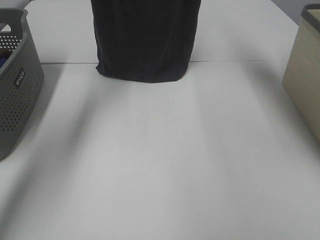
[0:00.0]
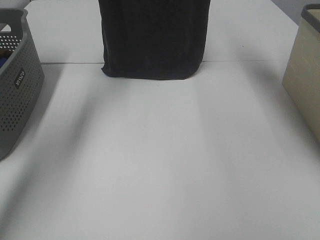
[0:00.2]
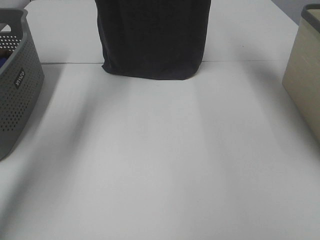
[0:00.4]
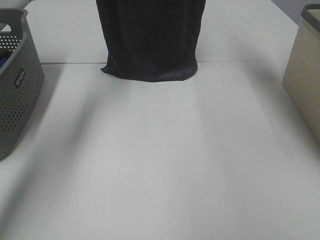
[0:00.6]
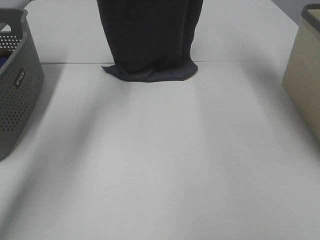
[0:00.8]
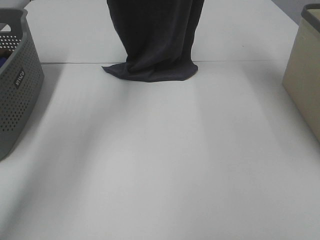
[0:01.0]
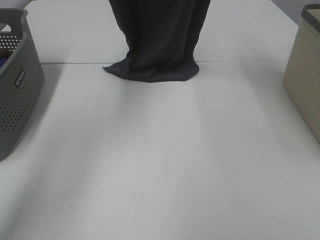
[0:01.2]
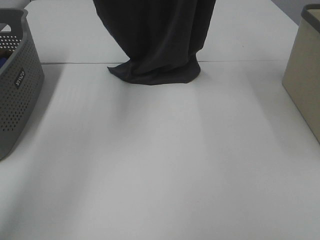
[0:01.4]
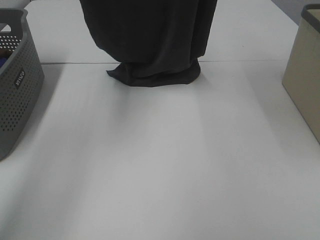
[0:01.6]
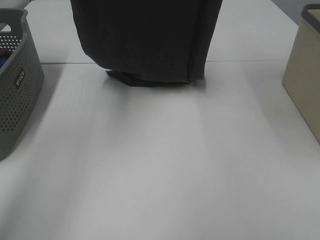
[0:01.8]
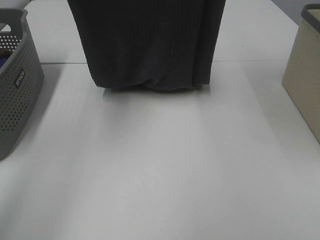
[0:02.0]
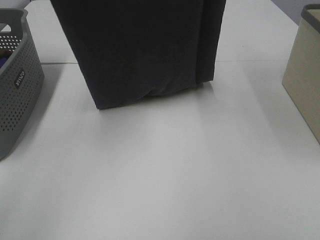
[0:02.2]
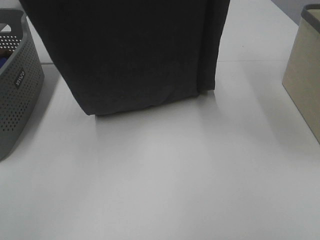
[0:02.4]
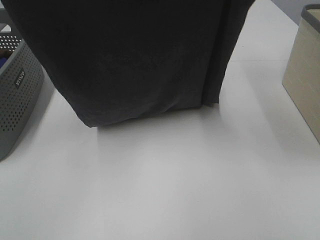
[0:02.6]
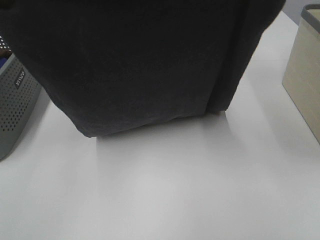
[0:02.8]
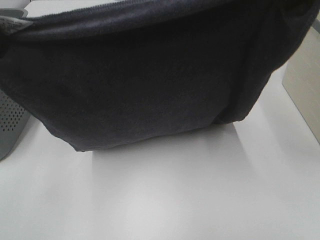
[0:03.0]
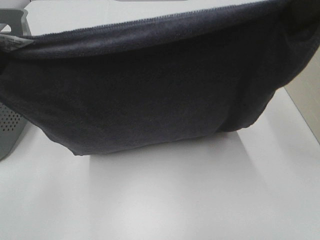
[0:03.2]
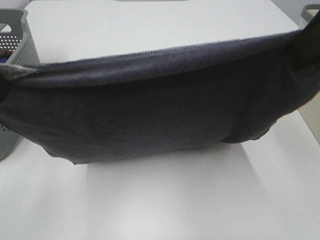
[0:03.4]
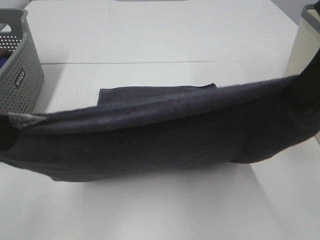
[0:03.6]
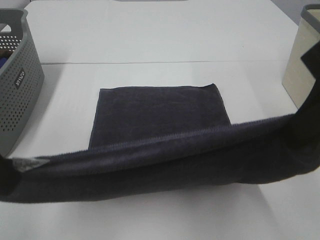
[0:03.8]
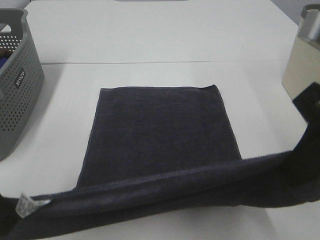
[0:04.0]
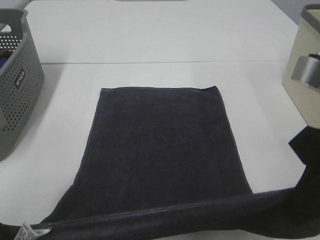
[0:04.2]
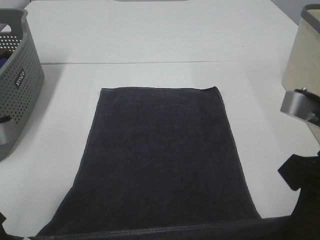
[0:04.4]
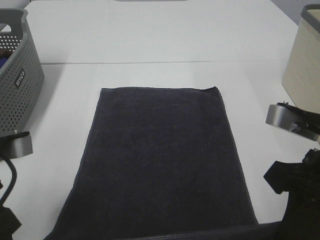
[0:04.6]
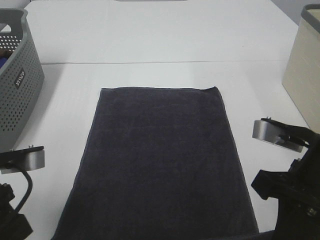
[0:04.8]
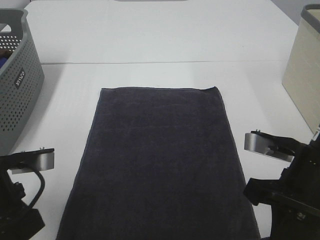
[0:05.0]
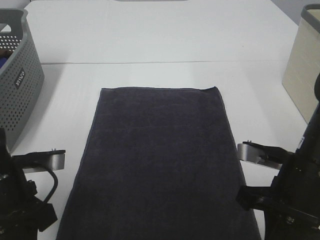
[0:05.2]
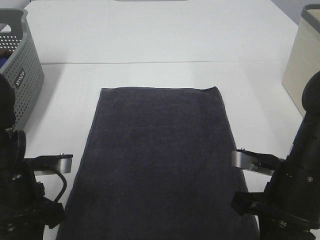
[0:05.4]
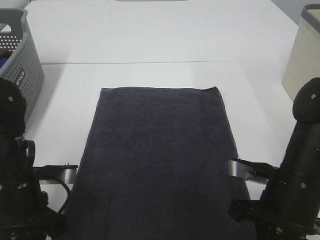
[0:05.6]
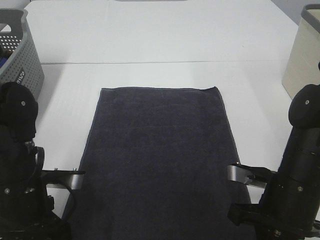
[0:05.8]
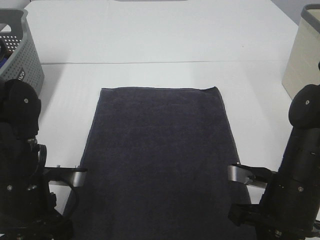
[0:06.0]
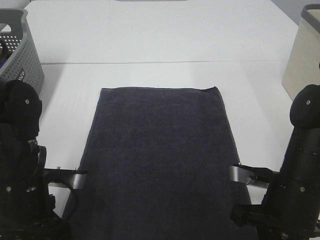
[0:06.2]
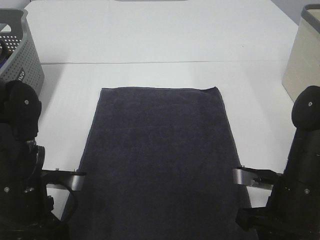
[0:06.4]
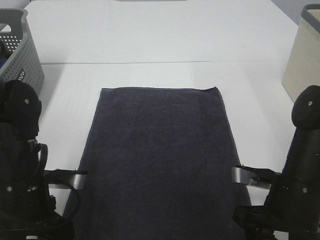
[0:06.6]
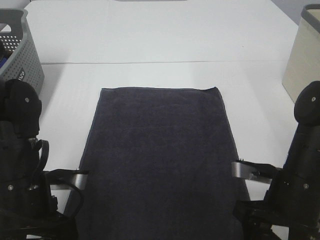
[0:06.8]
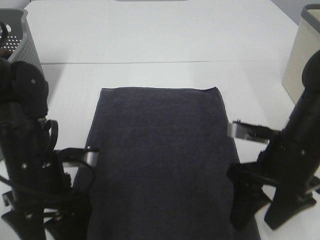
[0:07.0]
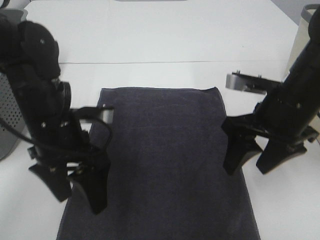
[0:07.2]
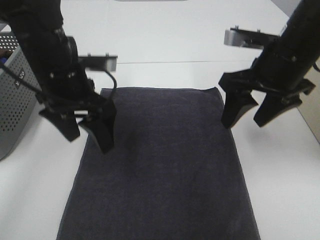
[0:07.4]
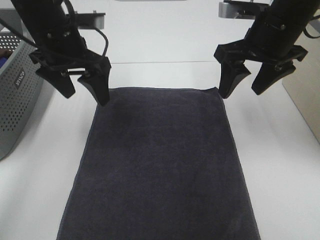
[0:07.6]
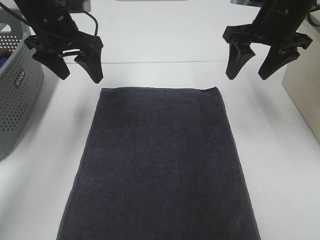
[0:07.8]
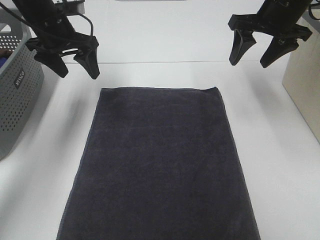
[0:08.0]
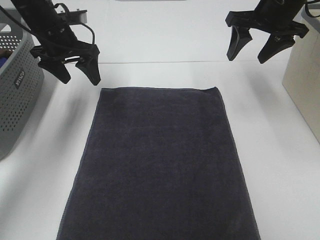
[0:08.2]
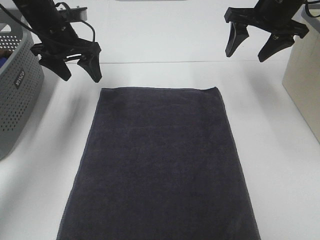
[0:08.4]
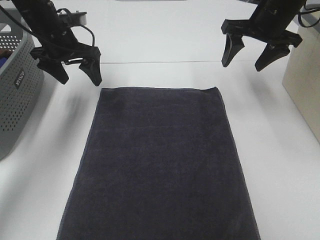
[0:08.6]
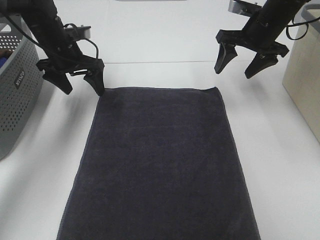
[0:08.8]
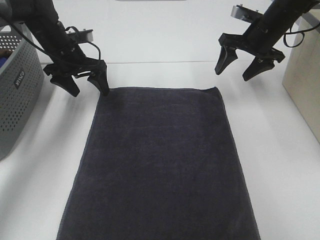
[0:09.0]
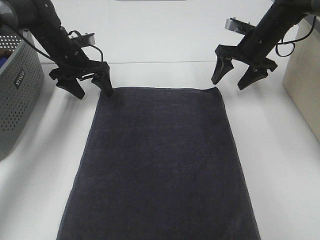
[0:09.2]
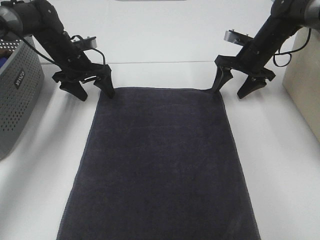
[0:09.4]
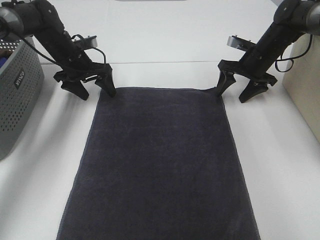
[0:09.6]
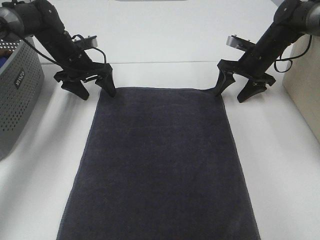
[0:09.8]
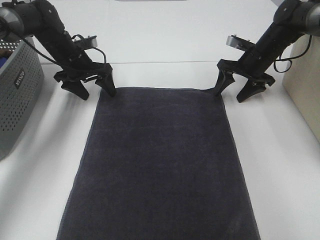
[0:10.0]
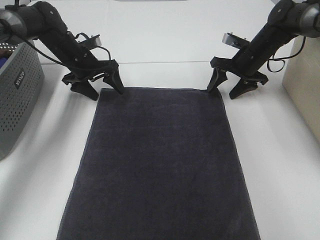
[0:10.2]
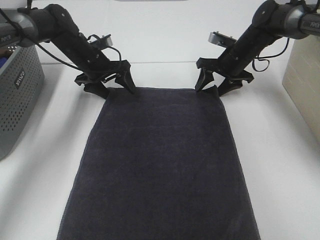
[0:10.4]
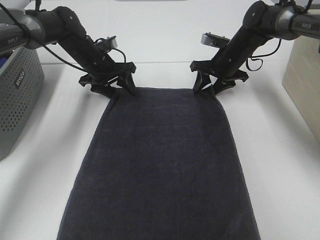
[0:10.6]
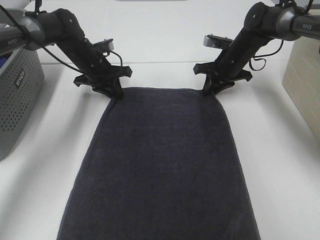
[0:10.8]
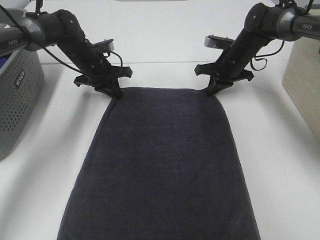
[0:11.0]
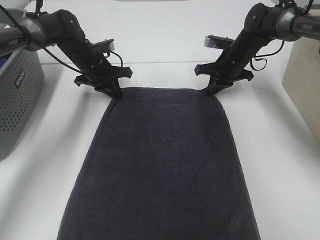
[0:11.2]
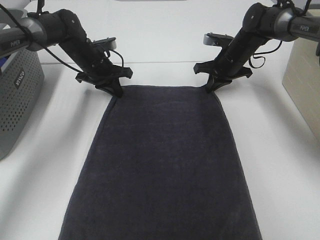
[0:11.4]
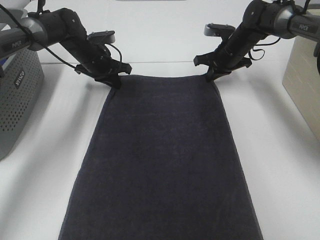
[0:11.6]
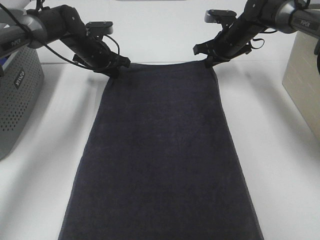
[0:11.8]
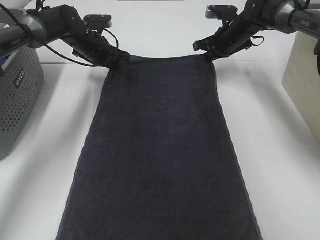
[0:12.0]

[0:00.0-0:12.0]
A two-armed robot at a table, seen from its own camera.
Task of the whole recording: Remove the towel and place it.
Step, 0:00.0 to 0:02.0: Left hand: spread the grey towel flat on the table.
Step, 0:00.0 to 0:02.0: Right hand: spread the grey towel flat on the table.
Step, 0:02.2 to 0:08.6: Right hand:adjust the gray towel.
Step, 0:02.2 to 0:10.6: Left hand:adjust the gray towel.
0:00.0 to 0:01.6: Both grippers travel together backward, approximately 10 cm.
0:01.6 to 0:03.0: Both grippers travel together backward and downward, roughly 20 cm.
0:03.0 to 0:04.4: Both grippers move downward, approximately 15 cm.
0:04.4 to 0:06.0: The left gripper shifts about 10 cm downward and forward, while the right gripper goes about 15 cm downward.
0:06.0 to 0:07.6: Both grippers move forward and upward, some 25 cm. The right gripper opens. The left gripper opens its fingers.
0:07.6 to 0:09.0: The left gripper travels forward and downward by approximately 15 cm, while the right gripper heads forward, downward and to the right, covering roughly 15 cm.
0:09.0 to 0:10.4: The right gripper heads downward, covering roughly 10 cm; the left gripper moves approximately 5 cm.
0:10.4 to 0:12.0: The left gripper closes its fingers. Meanwhile the right gripper moves some 5 cm, and closes its fingers.

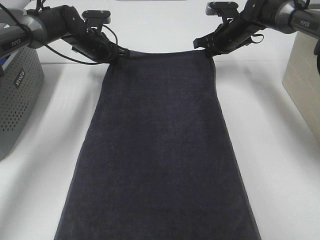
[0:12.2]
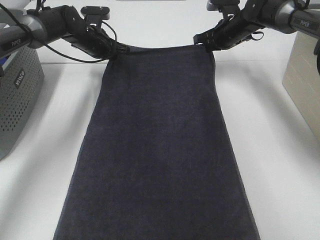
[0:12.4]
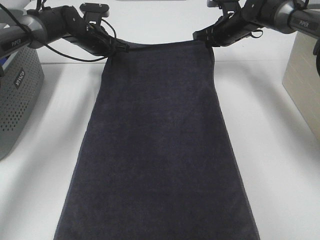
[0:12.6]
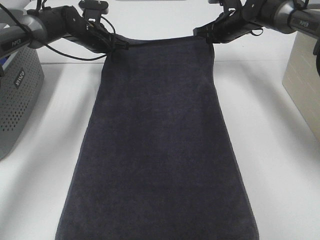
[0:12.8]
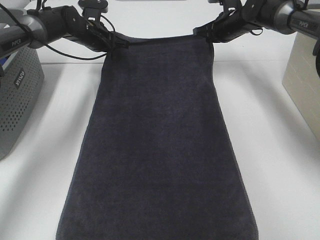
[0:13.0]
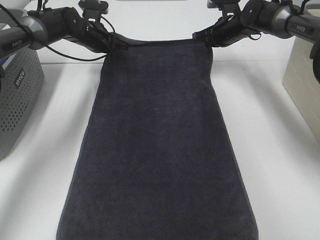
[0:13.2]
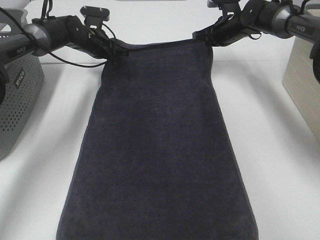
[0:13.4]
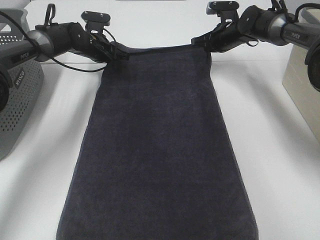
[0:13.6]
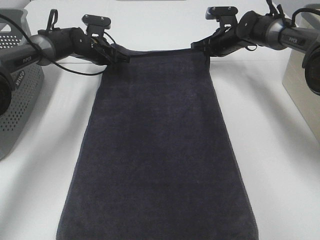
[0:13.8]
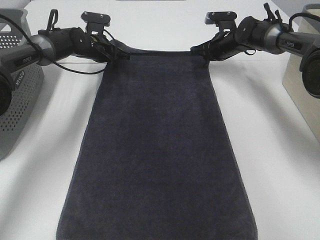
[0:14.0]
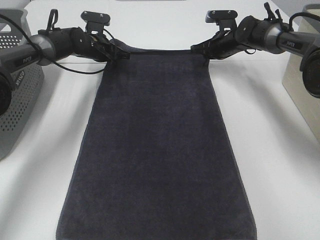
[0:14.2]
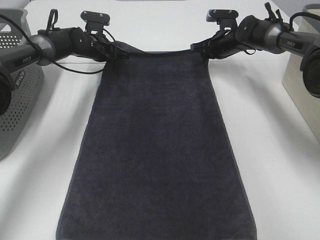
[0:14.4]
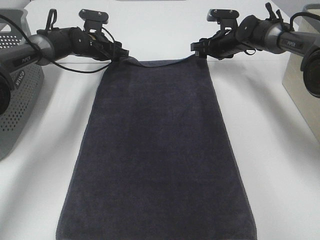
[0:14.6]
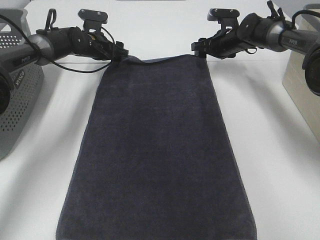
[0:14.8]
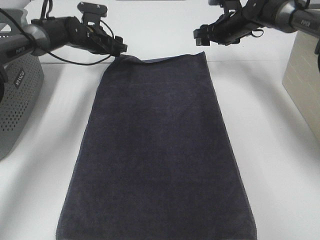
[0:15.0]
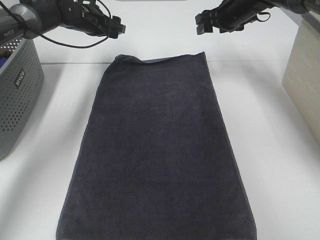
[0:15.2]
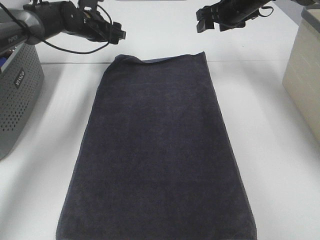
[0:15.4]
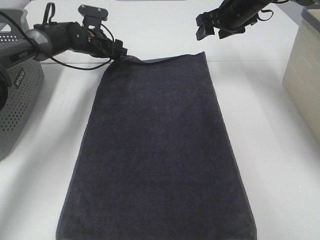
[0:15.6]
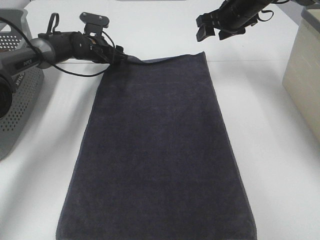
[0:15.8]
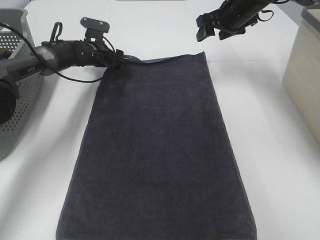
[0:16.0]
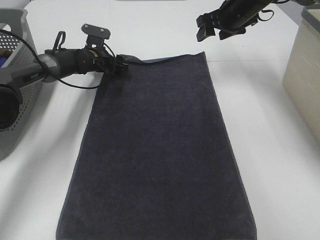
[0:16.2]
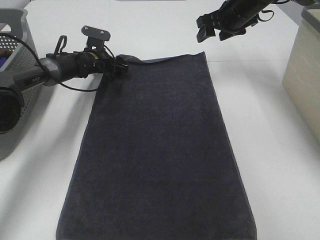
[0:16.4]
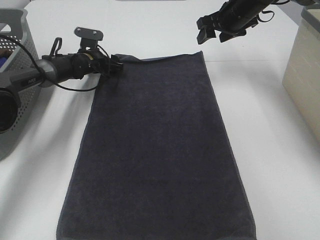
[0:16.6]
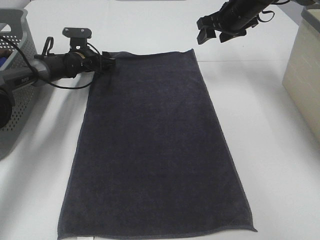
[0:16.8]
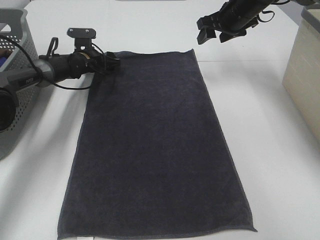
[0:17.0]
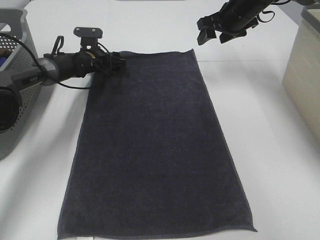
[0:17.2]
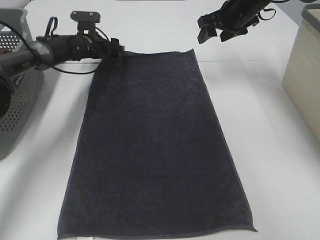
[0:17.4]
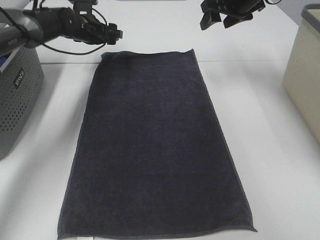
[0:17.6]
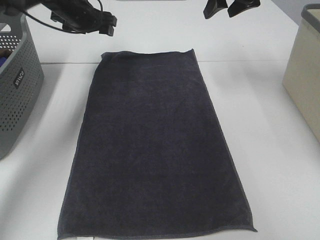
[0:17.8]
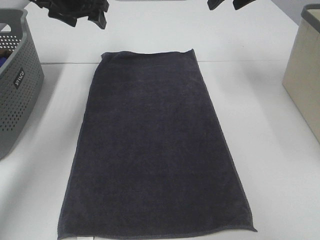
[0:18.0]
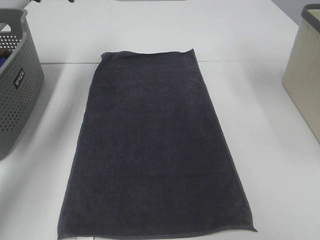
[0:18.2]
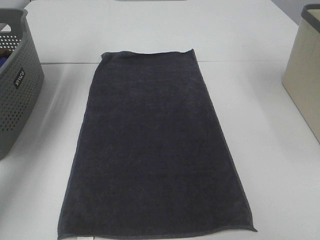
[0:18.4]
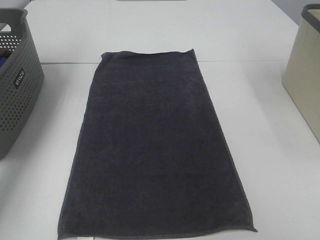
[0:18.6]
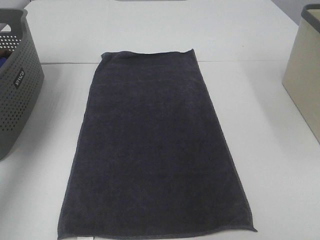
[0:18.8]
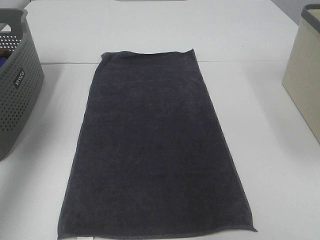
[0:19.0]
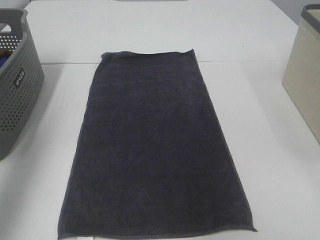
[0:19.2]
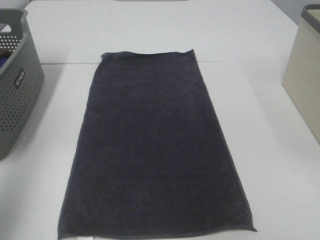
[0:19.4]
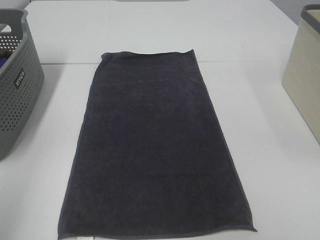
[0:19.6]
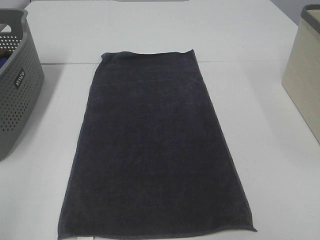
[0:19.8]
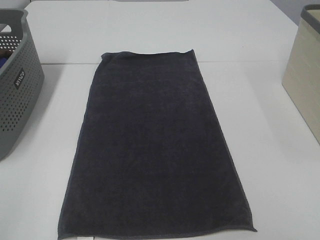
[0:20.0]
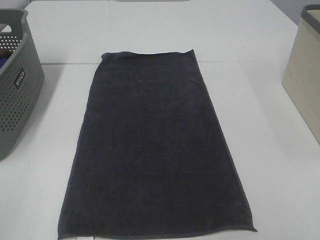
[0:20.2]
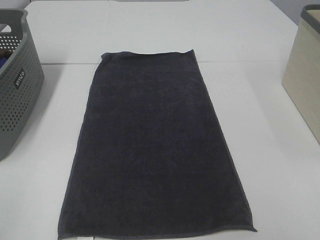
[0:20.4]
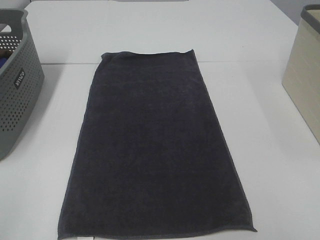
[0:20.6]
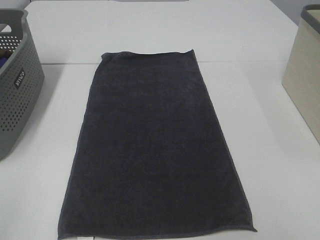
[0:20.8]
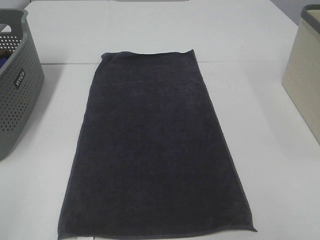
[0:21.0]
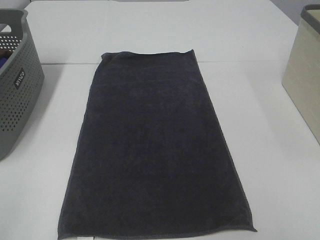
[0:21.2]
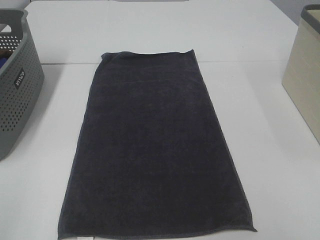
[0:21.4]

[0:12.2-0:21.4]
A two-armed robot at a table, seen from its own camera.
Task of the whole recording: Remove the towel and place it.
0:12.2 to 0:13.8: The grippers make only small movements.
0:13.8 to 0:15.2: The two grippers go about 10 cm upward. The left gripper opens up; the right gripper opens its fingers.
0:15.2 to 0:16.8: The left gripper shifts about 10 cm downward.
0:16.8 to 0:18.4: The left gripper heads upward, covering some 30 cm; the right gripper heads upward and backward, covering roughly 20 cm.
0:18.4 to 0:19.8: The left gripper heads backward, covering some 50 cm.

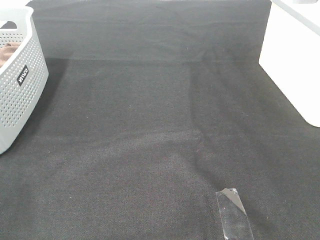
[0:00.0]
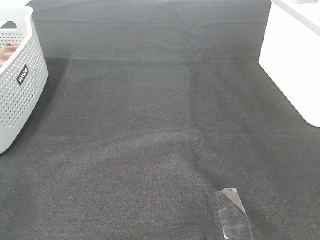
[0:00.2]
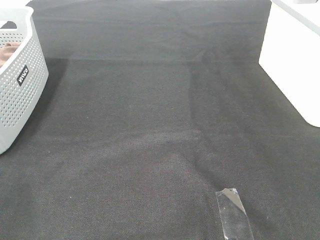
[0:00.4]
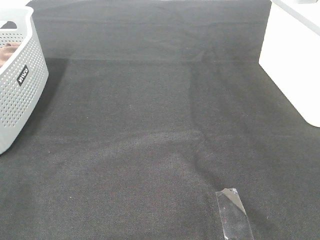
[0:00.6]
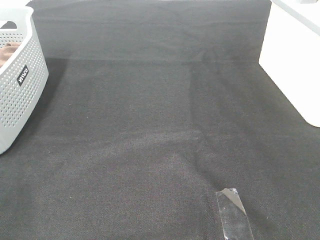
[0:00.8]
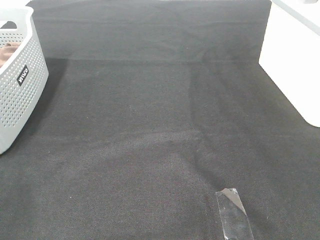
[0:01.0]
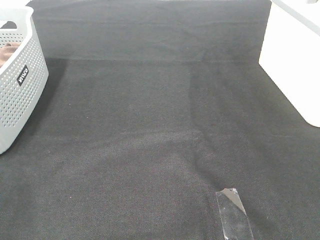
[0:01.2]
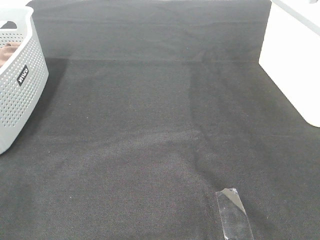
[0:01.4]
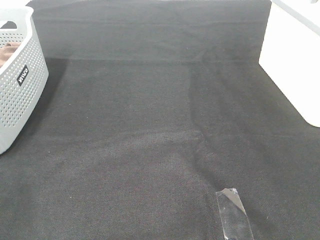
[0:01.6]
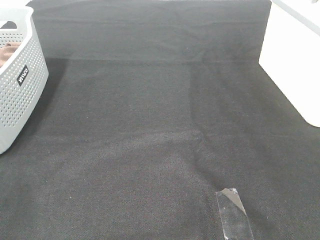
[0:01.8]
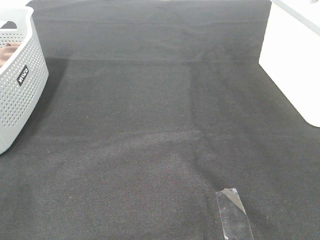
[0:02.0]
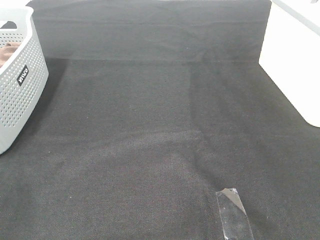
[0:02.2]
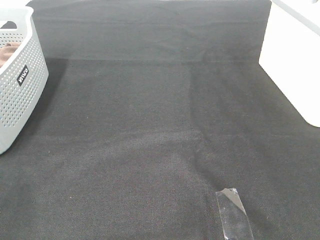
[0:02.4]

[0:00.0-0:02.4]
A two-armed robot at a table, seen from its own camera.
Task of the whole recording: Remove the towel and place it.
0:00.0 to 0:02.4: Both grippers stay about where they are.
